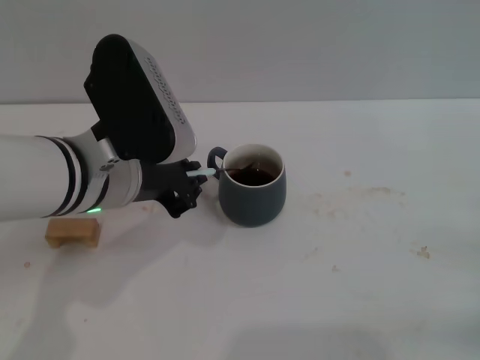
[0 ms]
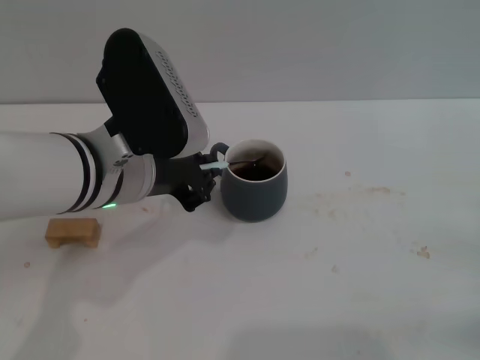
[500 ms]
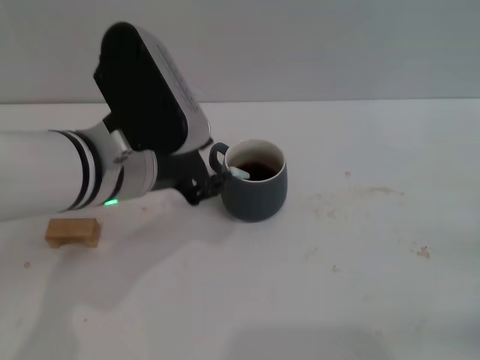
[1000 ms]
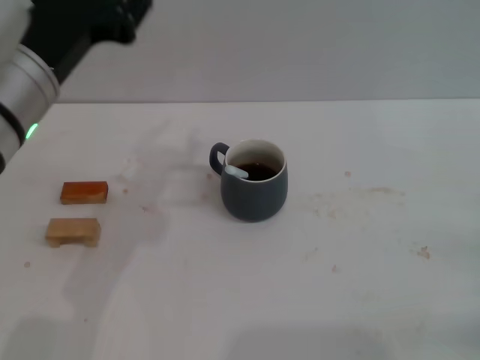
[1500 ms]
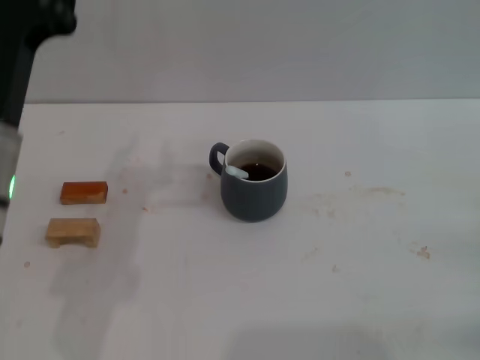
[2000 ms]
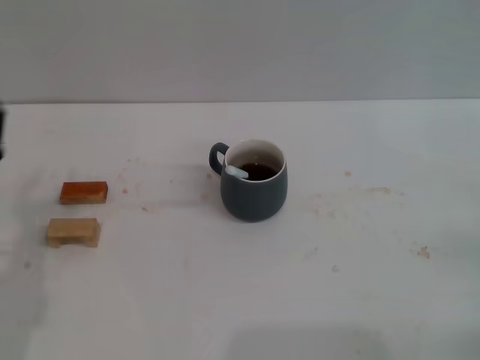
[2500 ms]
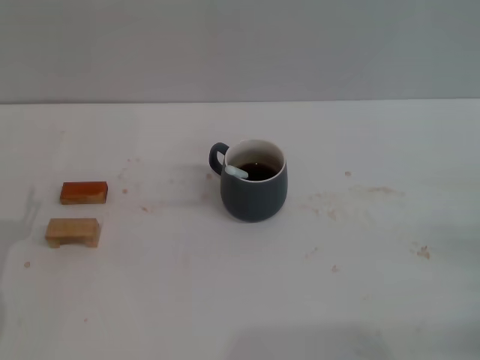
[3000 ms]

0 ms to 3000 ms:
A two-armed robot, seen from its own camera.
Task of the whole recording: Move the grey cup to the center, lift the blue spoon, stir it three times in the cup, and put the spoon into the cup.
0 ms to 1500 ms: The left gripper moves upward, about 5 cm, and opens its fingers.
1500 ms to 3000 ms: The left gripper travels downward and to the left by about 25 cm.

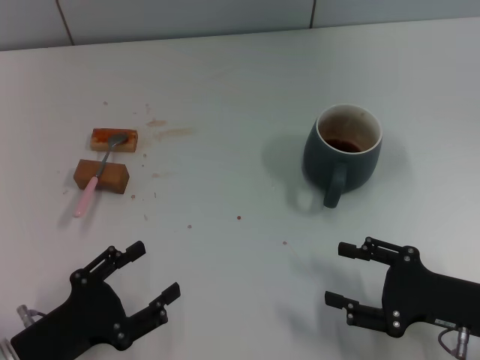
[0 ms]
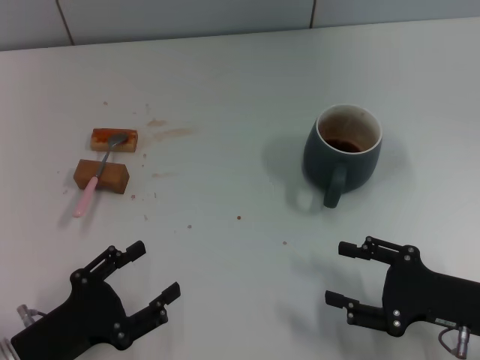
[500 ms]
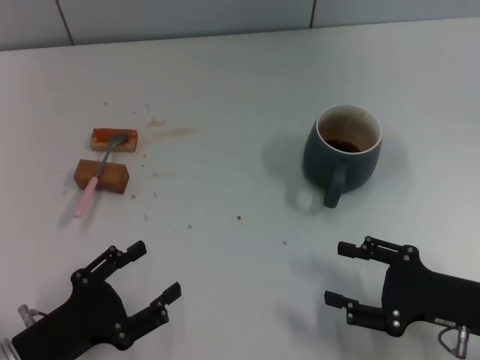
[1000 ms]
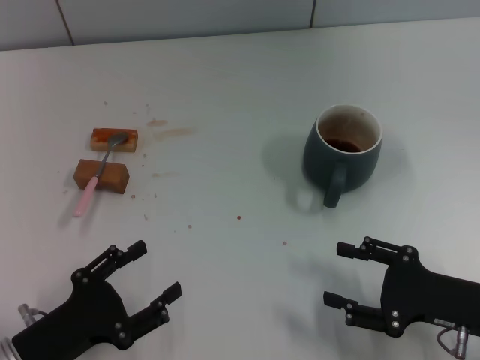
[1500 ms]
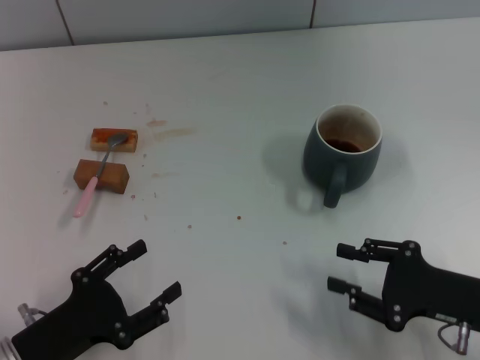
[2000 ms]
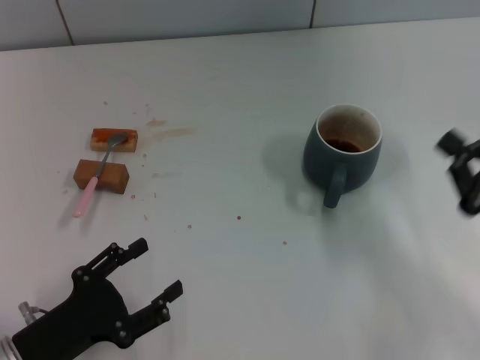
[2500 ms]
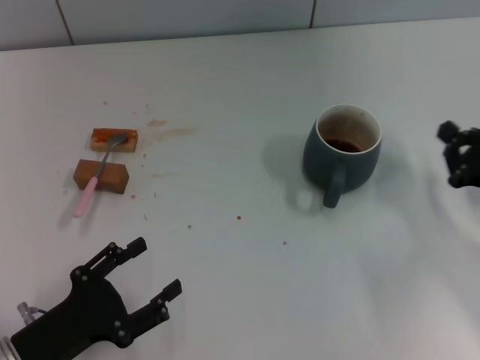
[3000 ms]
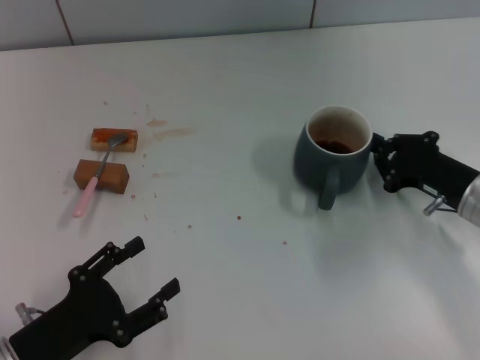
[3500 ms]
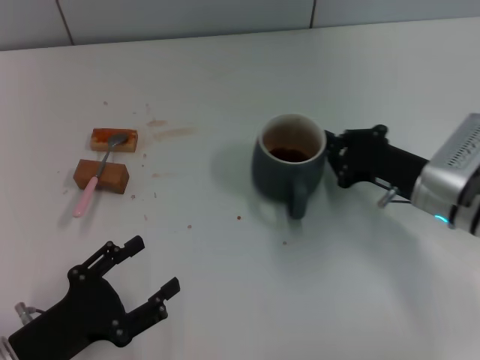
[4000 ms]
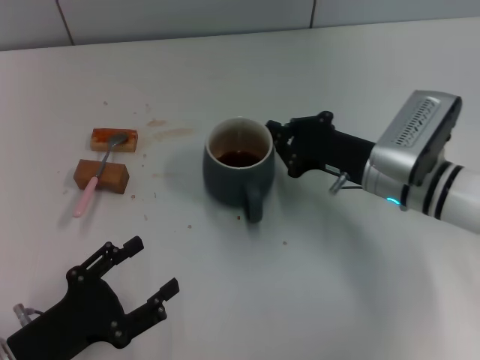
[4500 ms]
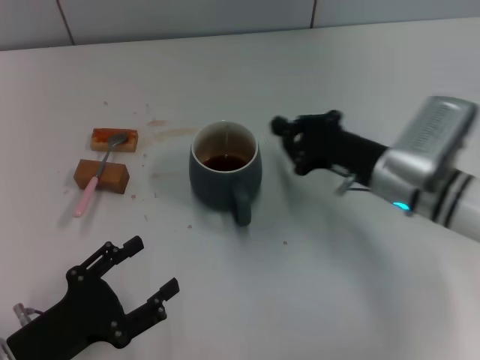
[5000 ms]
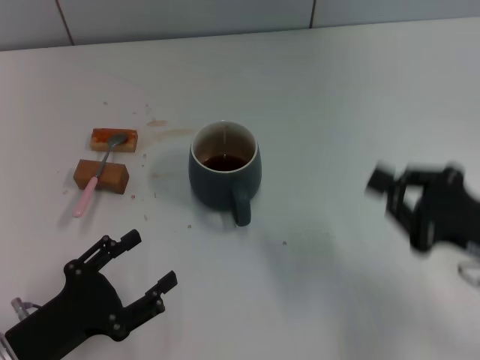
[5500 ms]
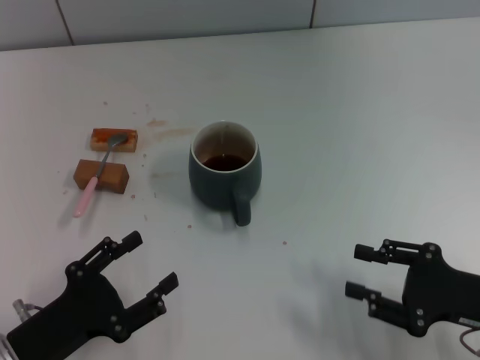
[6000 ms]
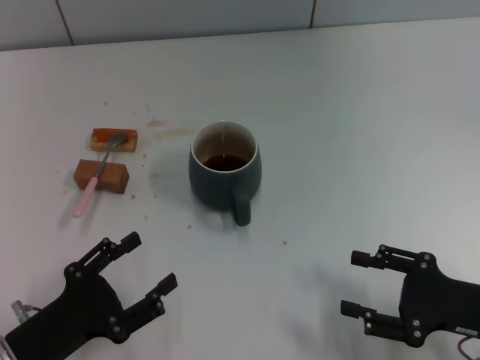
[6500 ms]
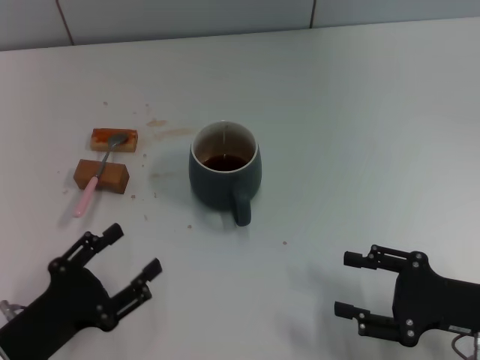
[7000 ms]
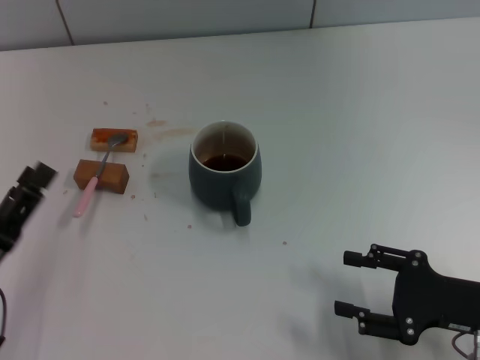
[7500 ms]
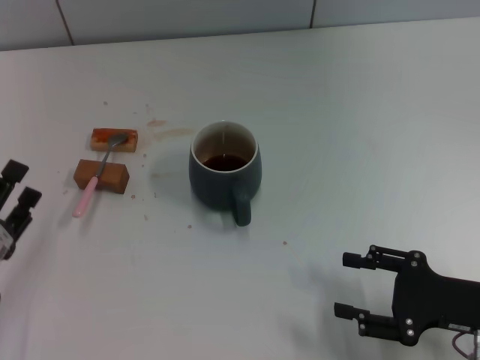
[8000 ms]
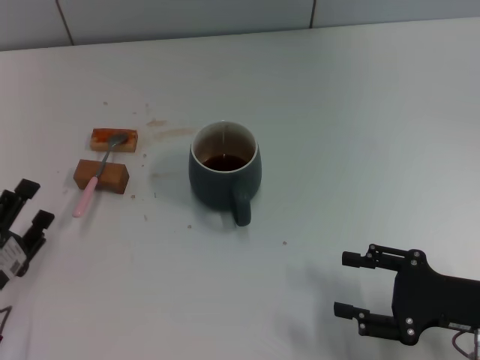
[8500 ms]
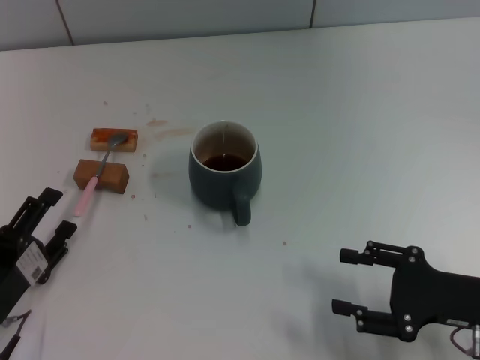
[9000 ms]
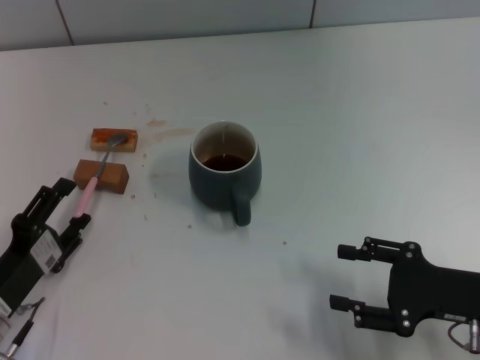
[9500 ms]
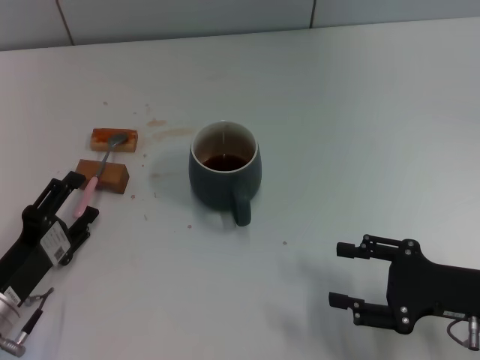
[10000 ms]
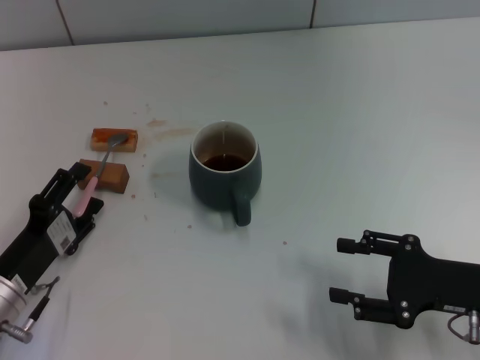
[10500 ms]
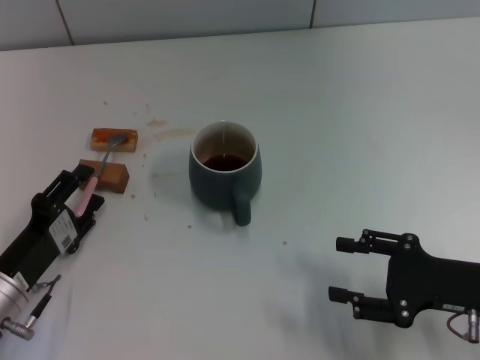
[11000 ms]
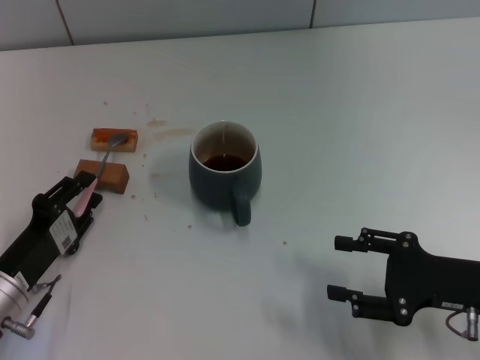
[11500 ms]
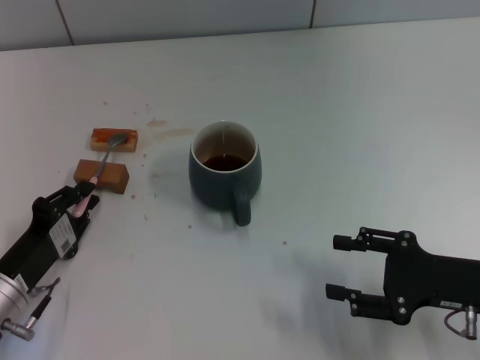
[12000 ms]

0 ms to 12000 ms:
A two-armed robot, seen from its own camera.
Task of the whole recording: Move the grey cup to the center, lift the pink spoon, stir it three times in the cup, and put the spoon into the cup.
Step, 0 ms to 5000 ms: Move the cup with coffee to the center of view with the right gripper.
0 ms to 2000 ms: Both grippers stay about where they are.
2000 ms to 4000 ms: The right gripper travels forward by some 10 cm, and closes.
4000 ms to 6000 ms: The right gripper goes approximately 15 cm backward and to the right, and opens.
6000 ms to 8000 ms: The right gripper opens up.
8000 ms to 10000 ms: There are only small adjustments of the grippers.
10000 ms to 12000 ms: The left gripper closes its fingers.

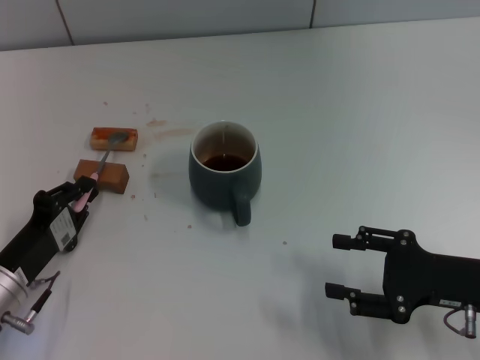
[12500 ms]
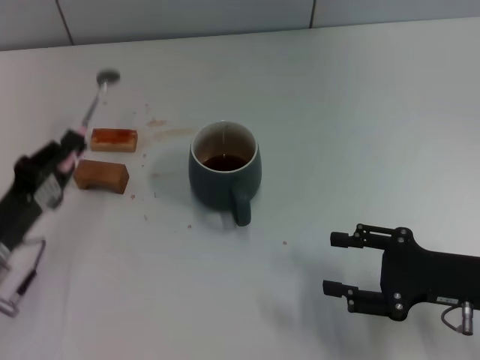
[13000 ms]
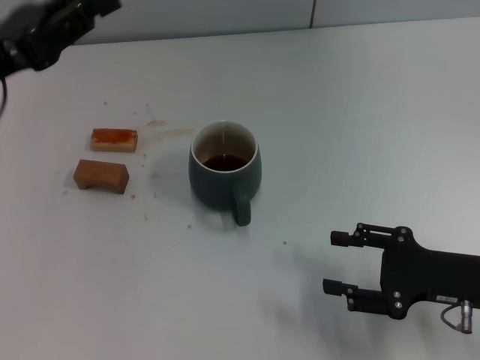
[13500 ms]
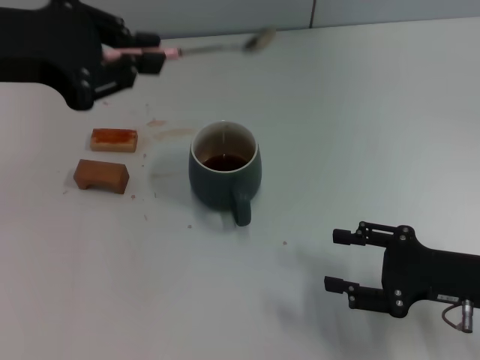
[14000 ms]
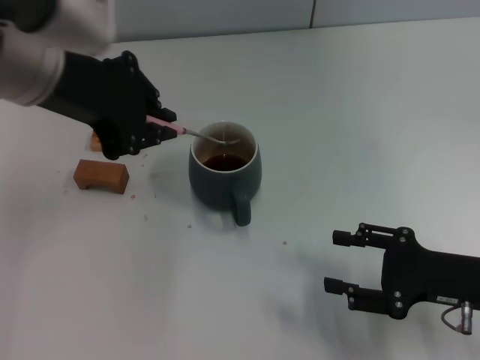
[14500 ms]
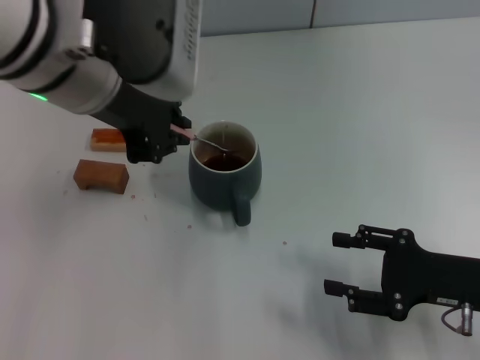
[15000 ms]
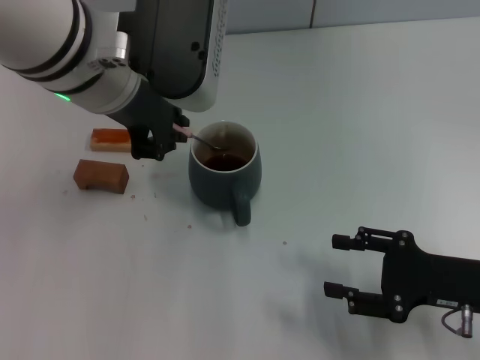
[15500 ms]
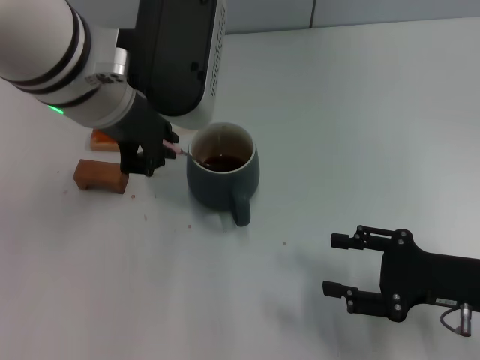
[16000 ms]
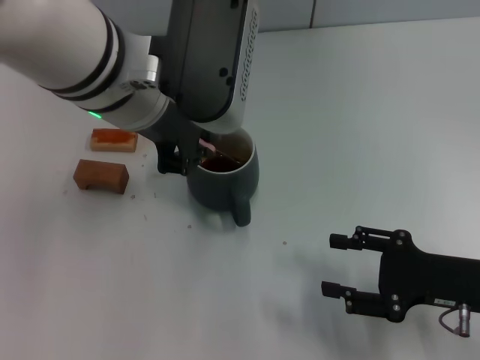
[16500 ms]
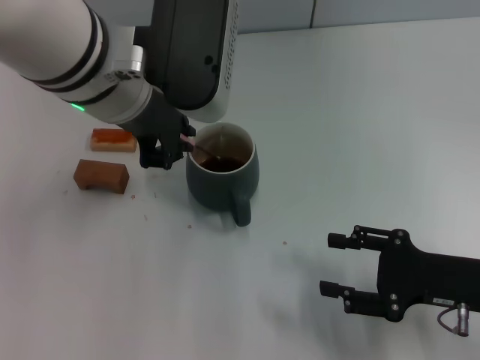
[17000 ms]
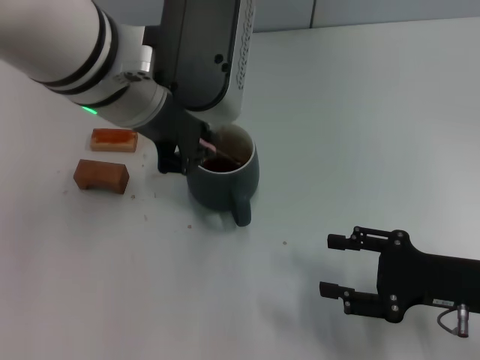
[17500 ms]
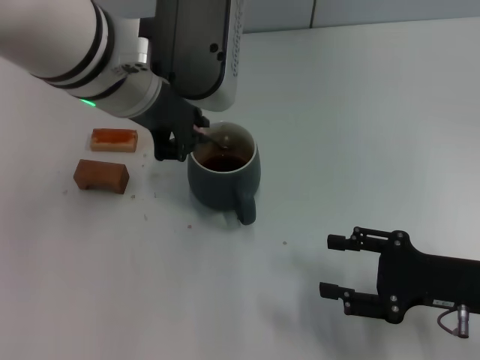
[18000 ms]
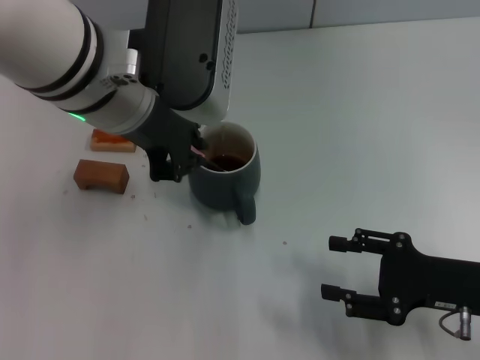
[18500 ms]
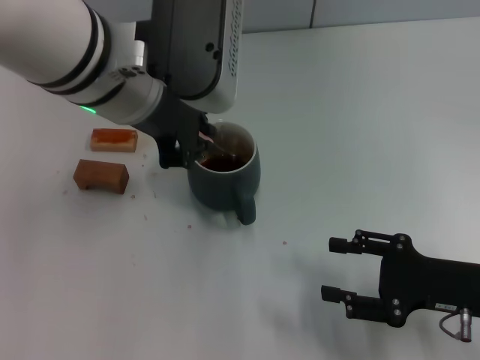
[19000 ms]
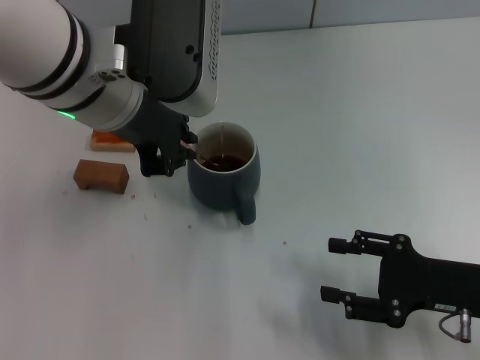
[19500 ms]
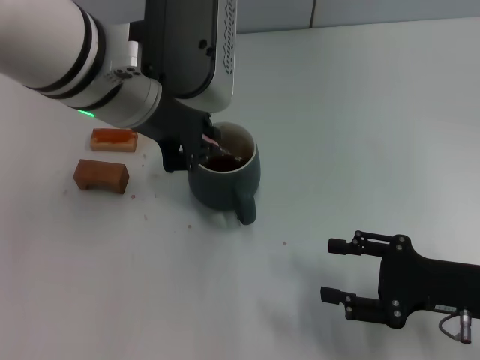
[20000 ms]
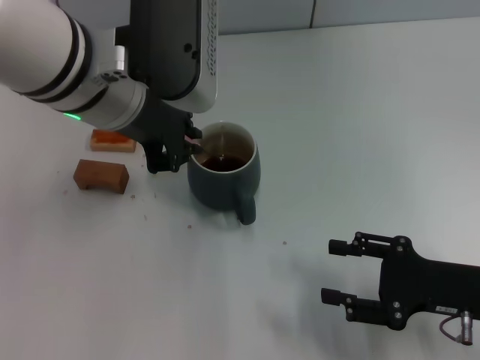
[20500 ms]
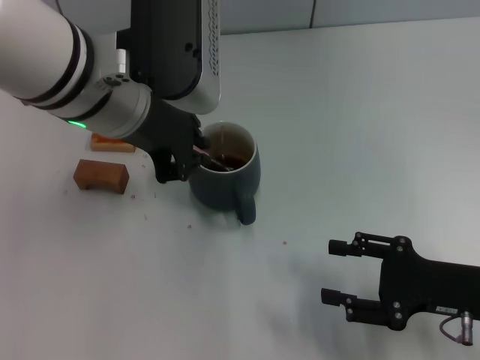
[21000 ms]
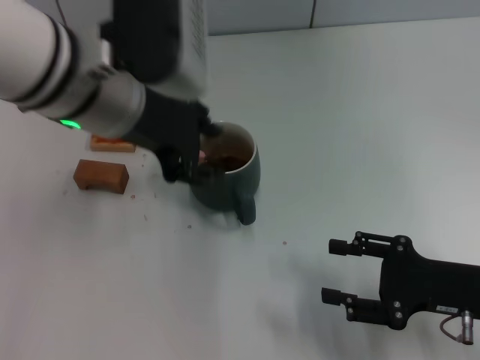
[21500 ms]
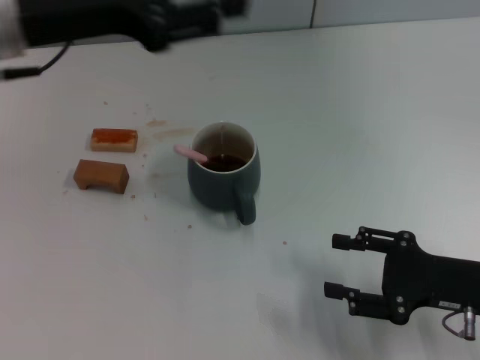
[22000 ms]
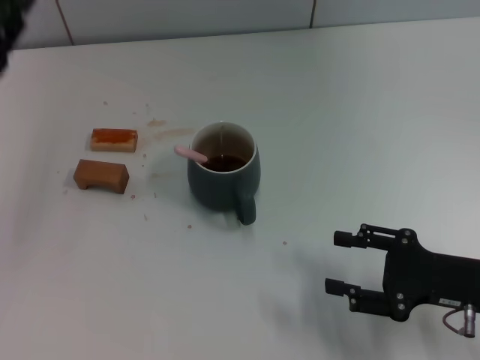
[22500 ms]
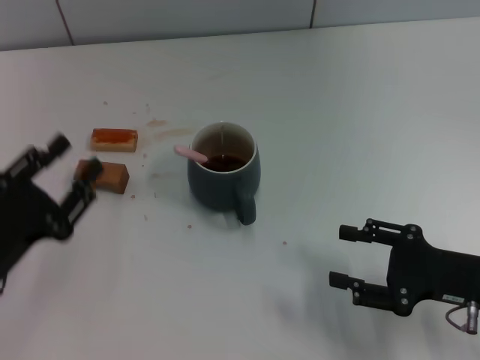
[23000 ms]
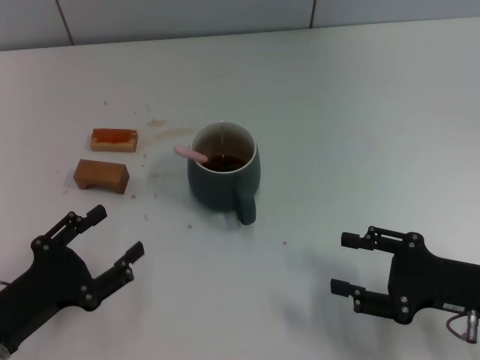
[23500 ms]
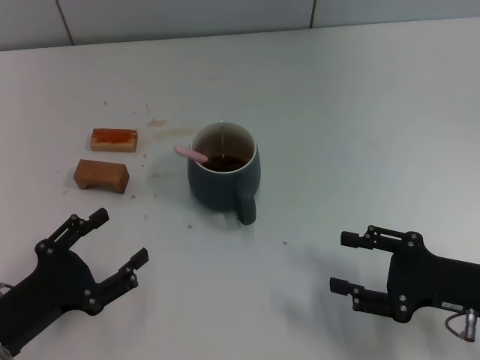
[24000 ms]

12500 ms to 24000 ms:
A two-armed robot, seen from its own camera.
Task of the whole recording: Move the grey cup to the center, lift the pink spoon, stir it three times in the cup, and put the spoon into the cup.
Step, 13000 ms to 21500 ms: Stir the coffee in the cup with the left gripper.
12500 ms to 14500 ms: The left gripper heads upward, covering approximately 25 cm.
14500 ms to 16500 ms: The left gripper is displaced to the right by some 5 cm.
16500 ms to 20000 ms: The grippers make only small movements.
20000 ms to 22000 ms: The left gripper is displaced to the left by about 10 cm, and opens its fingers.
22000 ms to 24000 ms: The left gripper travels downward and backward by roughly 30 cm, and opens.
